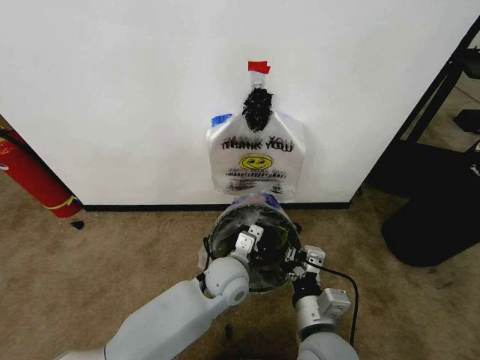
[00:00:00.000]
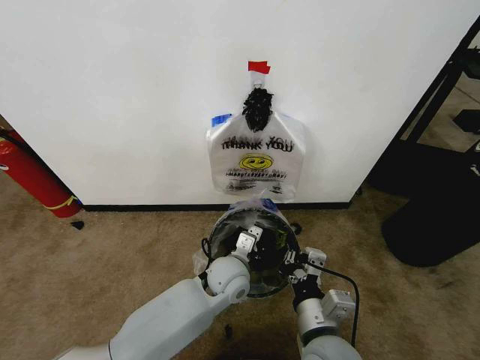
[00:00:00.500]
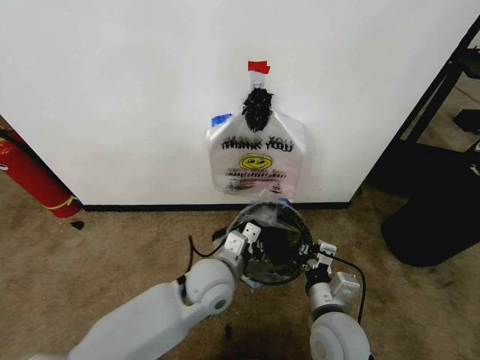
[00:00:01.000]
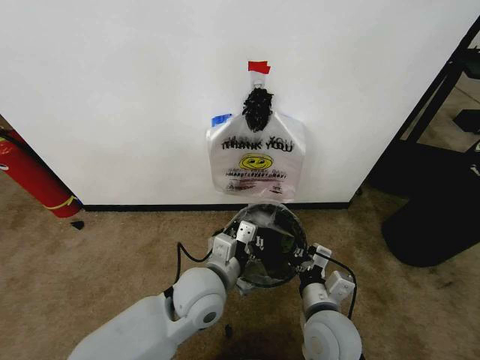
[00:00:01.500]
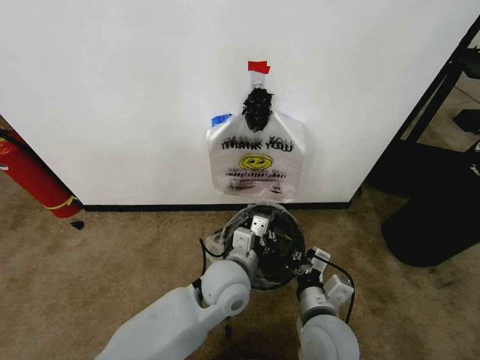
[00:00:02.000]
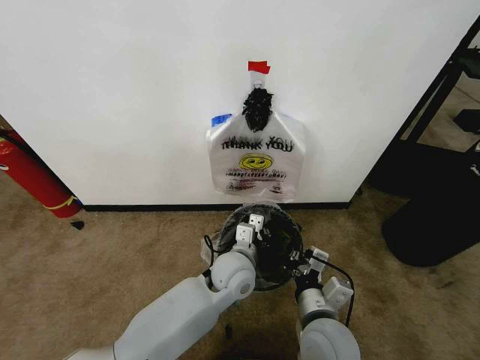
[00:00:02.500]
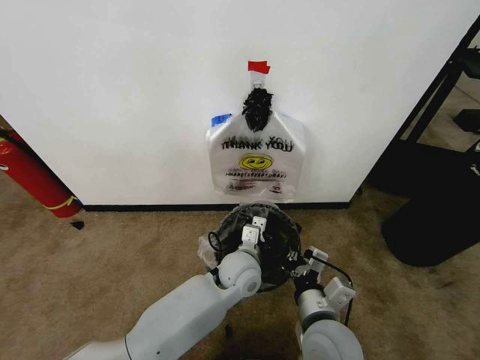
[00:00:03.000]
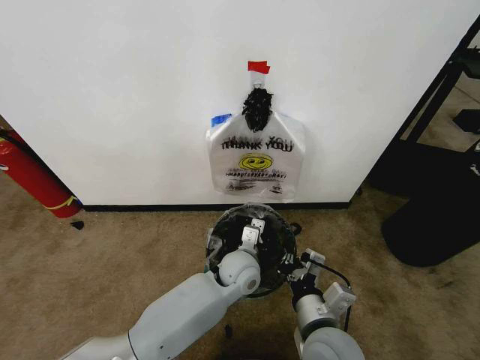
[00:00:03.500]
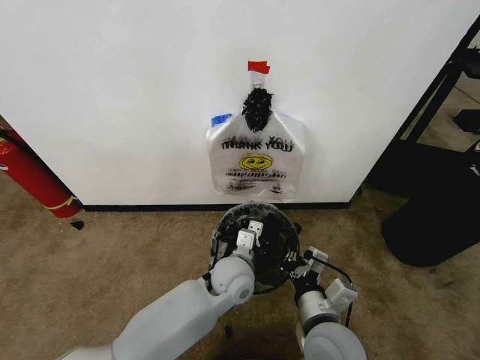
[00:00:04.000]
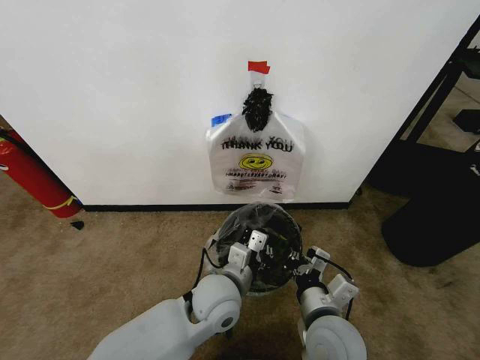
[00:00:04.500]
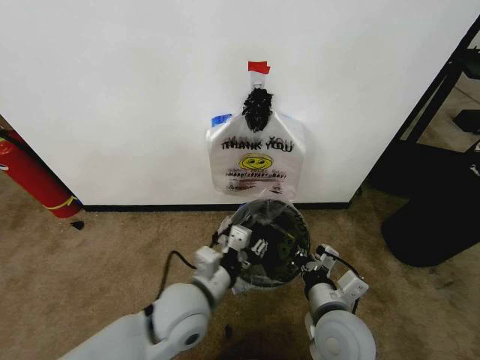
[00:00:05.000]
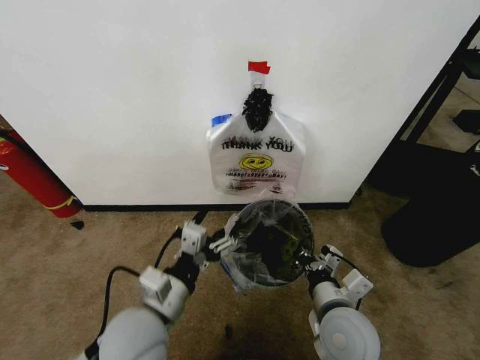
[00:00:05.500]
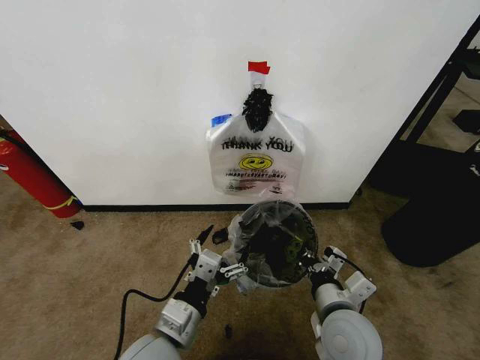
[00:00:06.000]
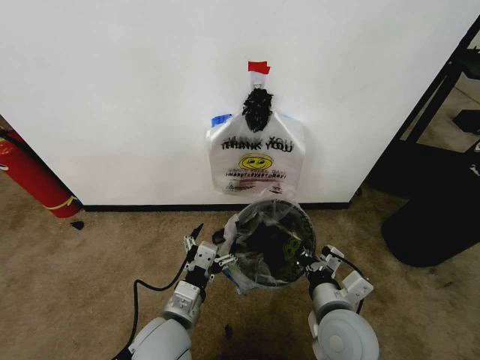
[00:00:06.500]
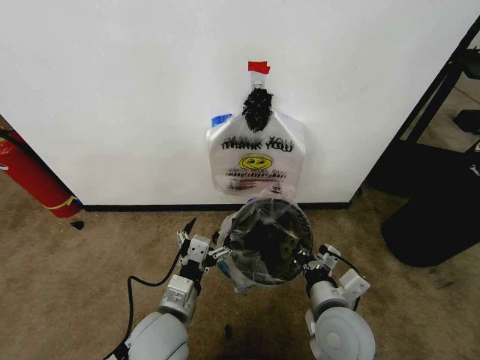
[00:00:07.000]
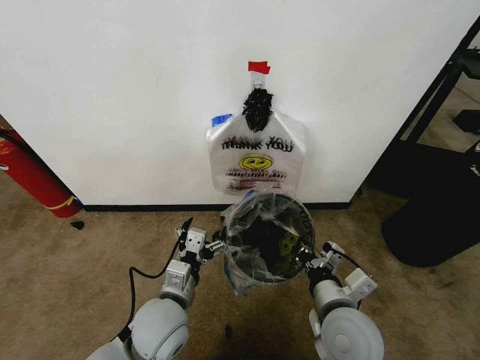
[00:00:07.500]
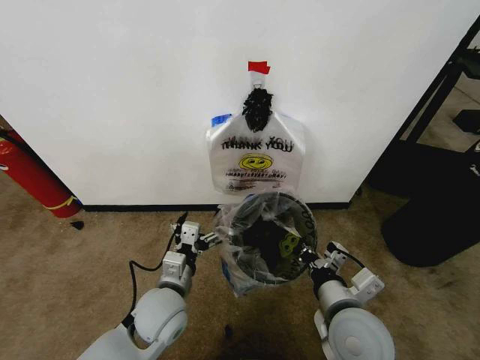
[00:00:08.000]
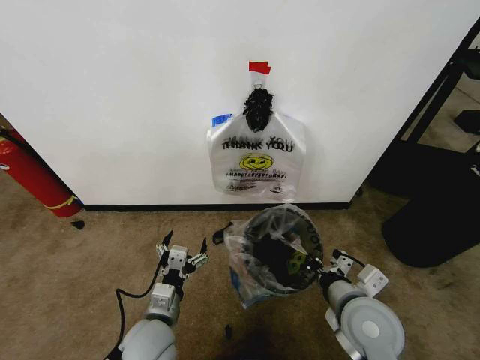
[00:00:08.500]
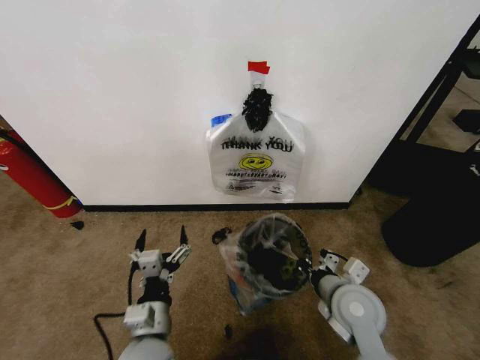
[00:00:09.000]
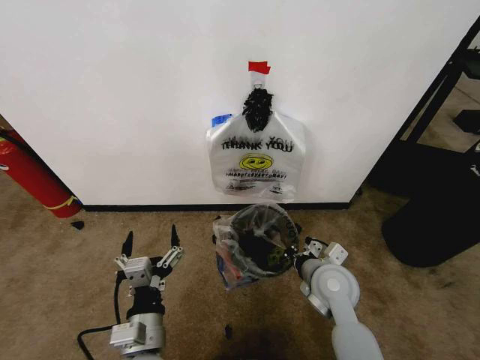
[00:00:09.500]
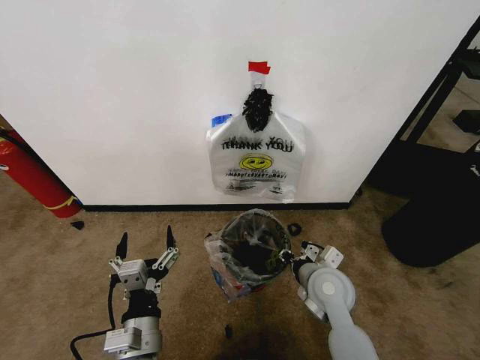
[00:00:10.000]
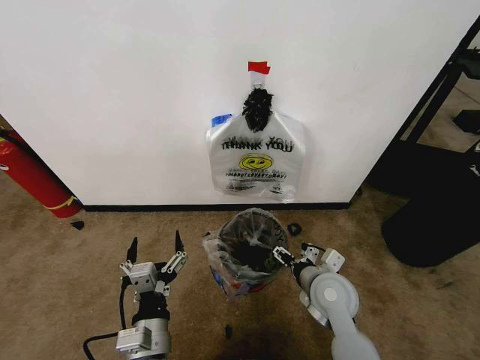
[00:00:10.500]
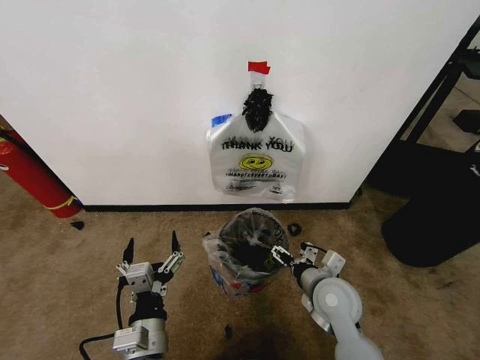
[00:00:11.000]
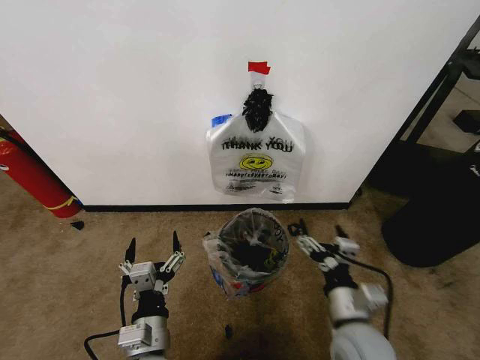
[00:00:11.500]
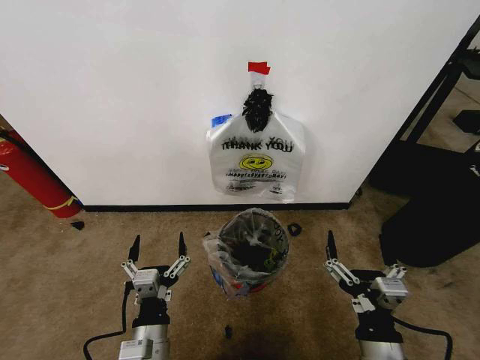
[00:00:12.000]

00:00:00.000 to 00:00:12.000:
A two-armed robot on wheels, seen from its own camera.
Task of the whole recording: Pick up the garbage bag from the wall and place it over the trash bin.
00:00:04.000 to 00:00:06.000: The left gripper is displaced backward and to the left by about 20 cm, and opens its fingers.
00:00:06.000 to 00:00:08.000: The left gripper shifts about 10 cm forward.
00:00:08.000 to 00:00:10.000: The right gripper shifts some 10 cm forward and downward, and opens, while the left gripper moves backward, some 10 cm.
00:00:10.000 to 00:00:12.000: The right gripper shifts approximately 20 cm backward, and opens.

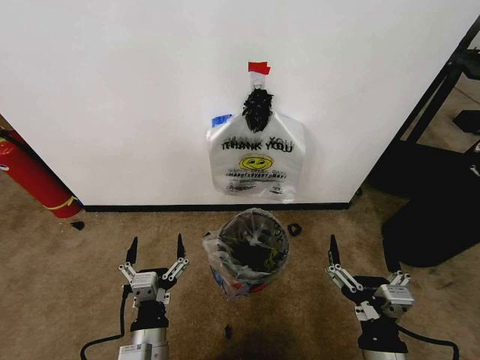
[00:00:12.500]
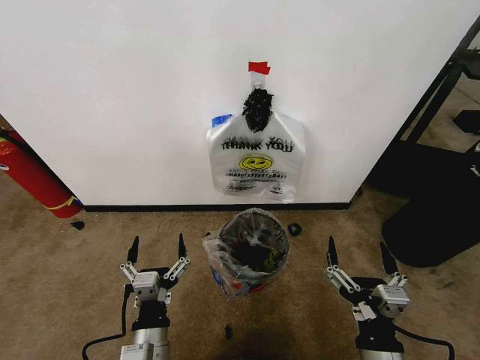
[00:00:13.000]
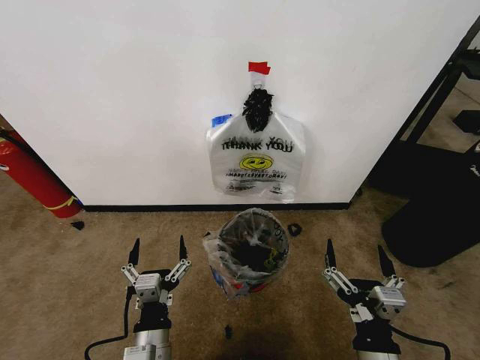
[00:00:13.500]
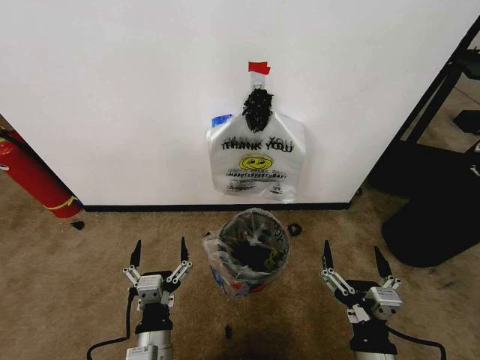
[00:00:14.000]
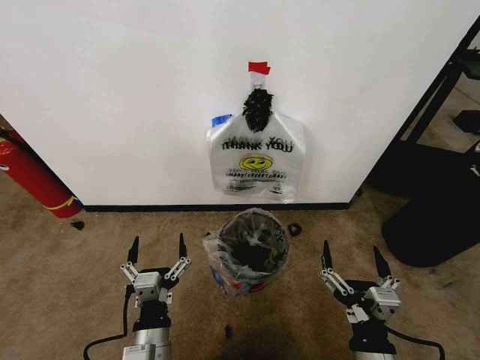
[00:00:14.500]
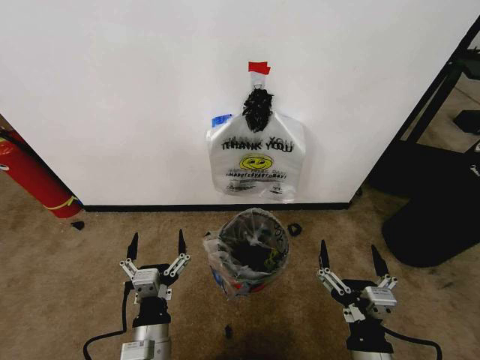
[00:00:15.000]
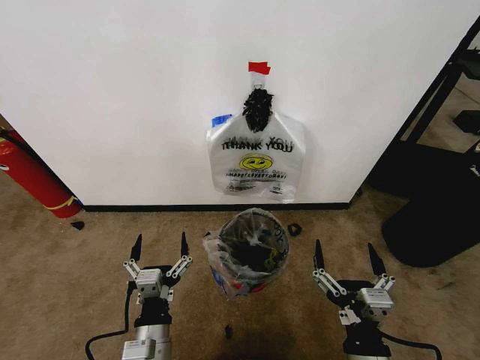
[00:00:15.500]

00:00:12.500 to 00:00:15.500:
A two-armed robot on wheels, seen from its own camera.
Task of the whole recording: Pick up the garbage bag from the wall and place it over the trash bin.
00:00:12.500 to 00:00:15.500: The grippers move only a little.

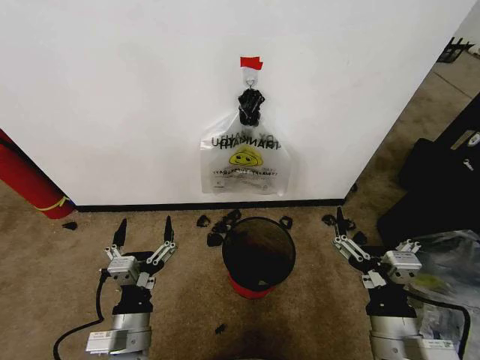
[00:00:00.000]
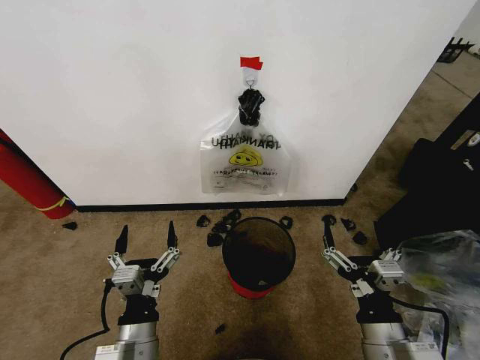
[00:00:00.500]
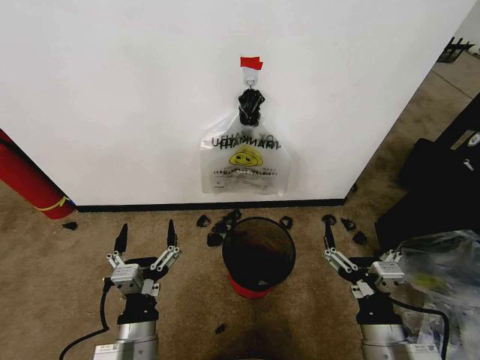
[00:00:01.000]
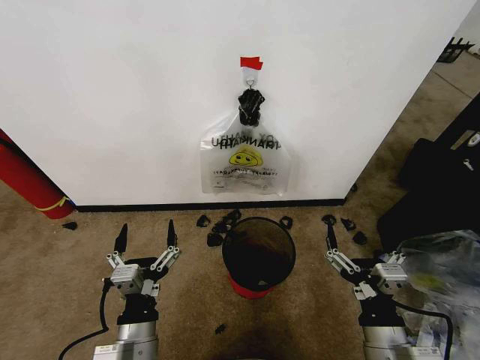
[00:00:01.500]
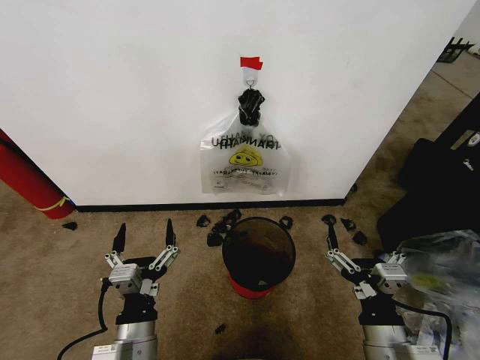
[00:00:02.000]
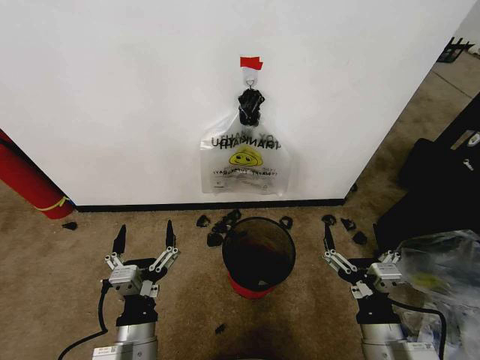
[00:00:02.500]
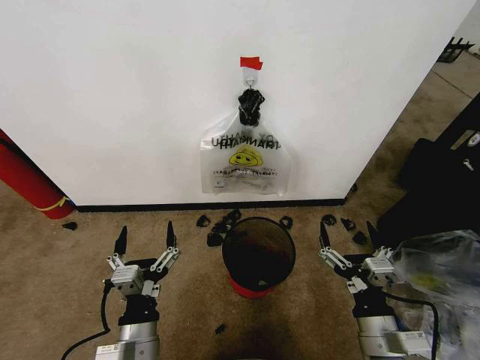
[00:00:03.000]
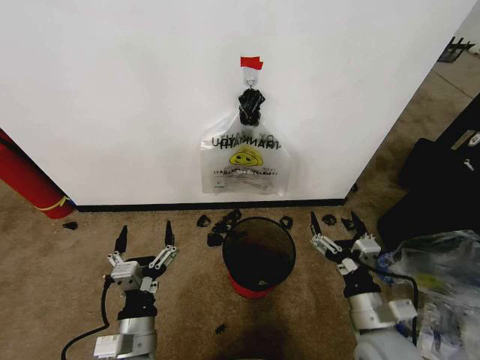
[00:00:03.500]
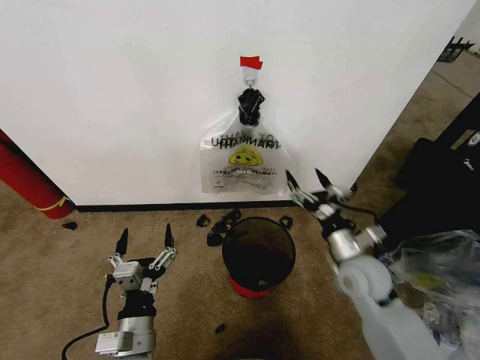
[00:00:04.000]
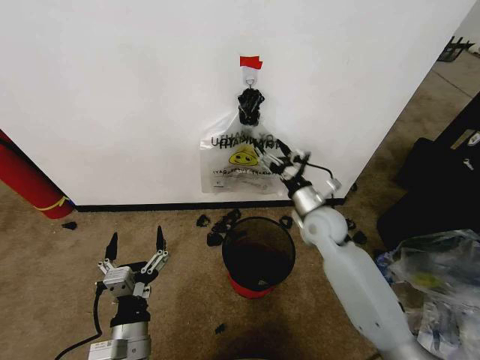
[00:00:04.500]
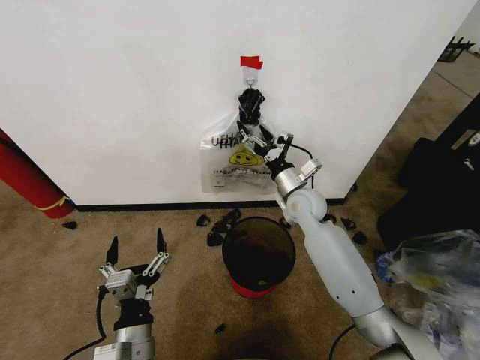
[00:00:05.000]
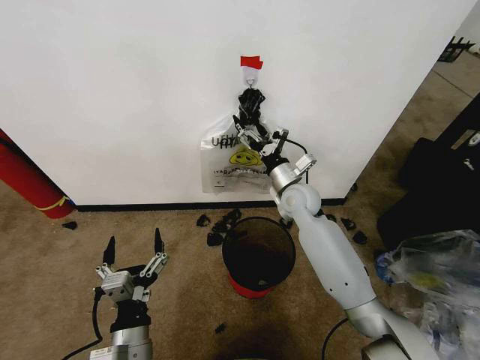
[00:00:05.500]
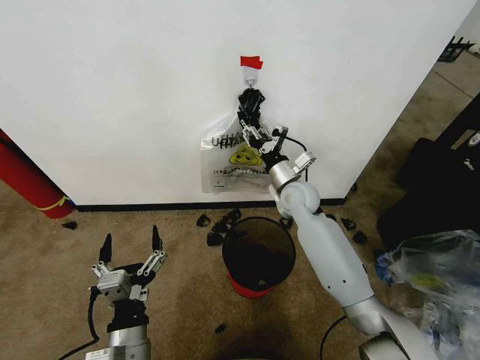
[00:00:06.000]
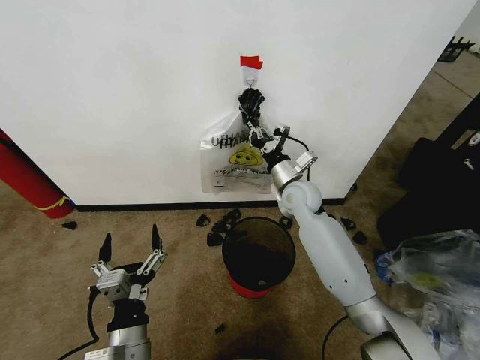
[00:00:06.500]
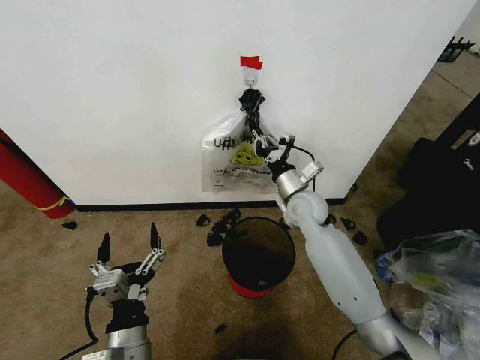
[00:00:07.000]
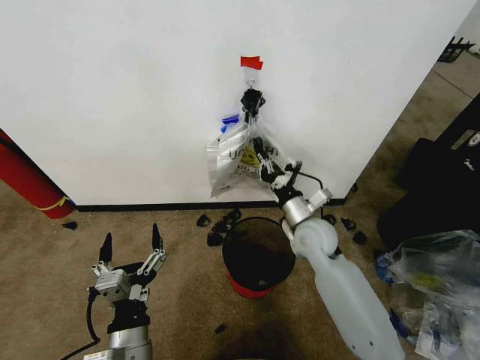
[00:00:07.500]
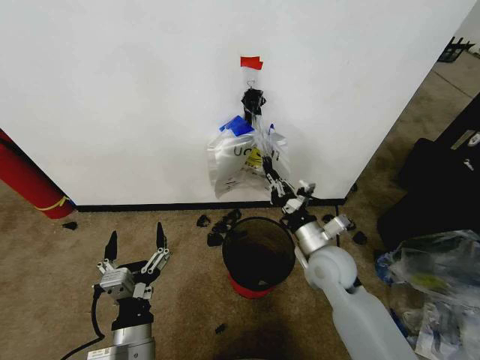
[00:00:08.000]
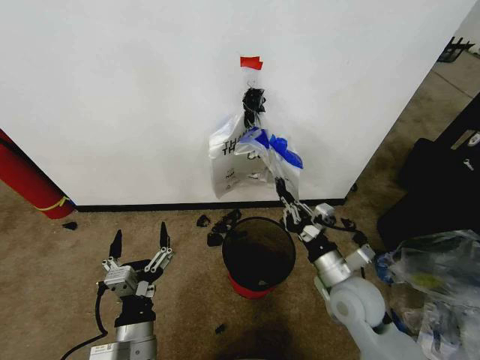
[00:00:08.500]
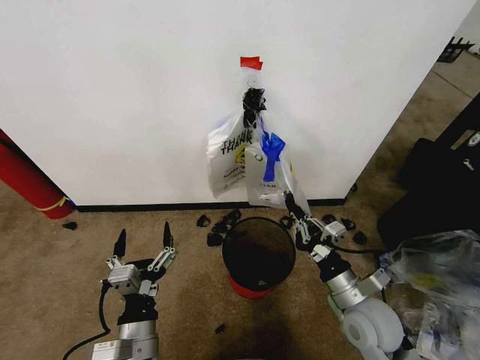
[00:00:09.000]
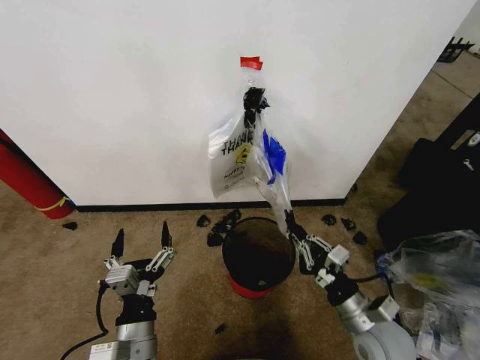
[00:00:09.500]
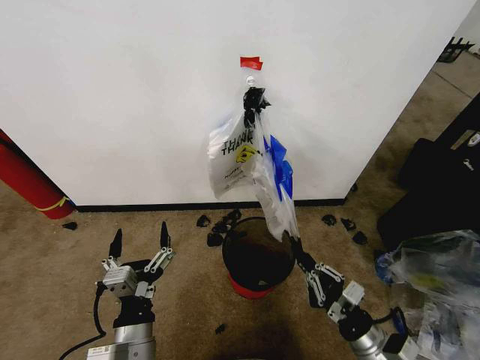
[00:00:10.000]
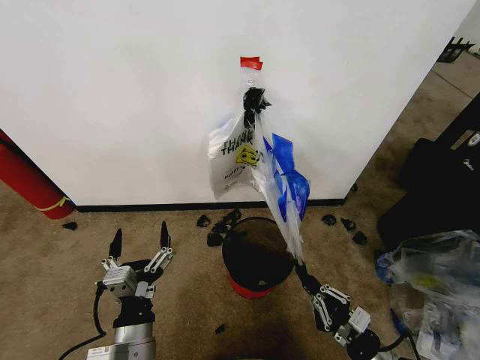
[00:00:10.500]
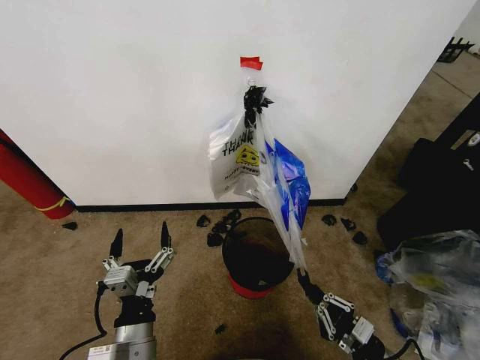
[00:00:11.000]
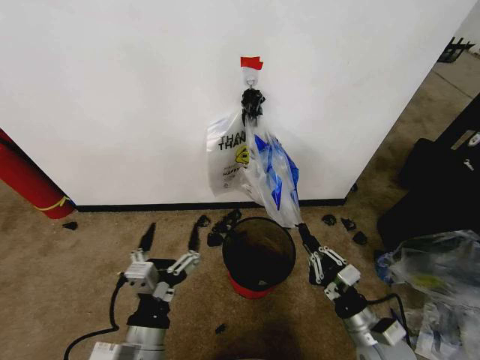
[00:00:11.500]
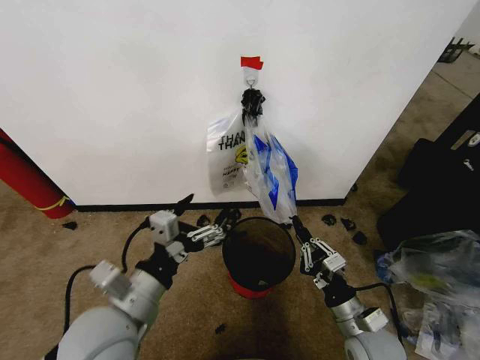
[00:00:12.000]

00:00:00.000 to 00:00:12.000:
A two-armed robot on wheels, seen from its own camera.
Task of the whole recording: Pick up the garbage bag from the wall and place it over the trash bin.
00:00:02.000 to 00:00:04.000: The right gripper goes about 20 cm forward.
00:00:04.000 to 00:00:06.000: The right gripper is displaced forward and to the left by about 20 cm, and closes its fingers.
00:00:06.000 to 00:00:08.000: The right gripper travels backward by some 15 cm, and closes.
00:00:08.000 to 00:00:10.000: The right gripper travels backward, to the right and downward by approximately 20 cm.
00:00:10.000 to 00:00:12.000: The right gripper moves about 5 cm; the left gripper is displaced upward by roughly 10 cm.
